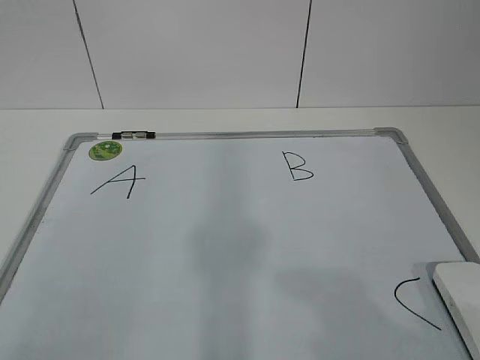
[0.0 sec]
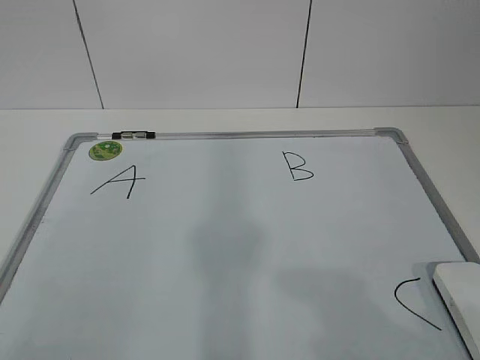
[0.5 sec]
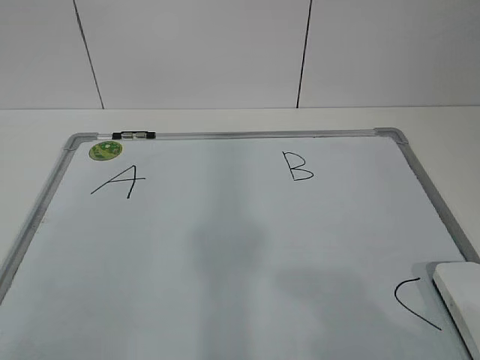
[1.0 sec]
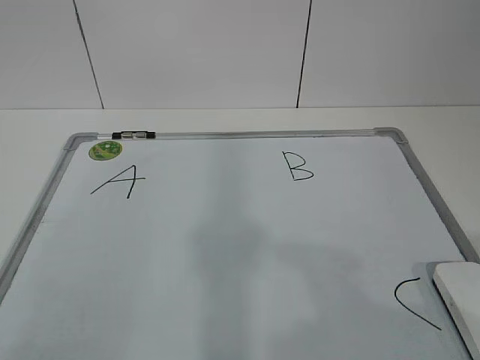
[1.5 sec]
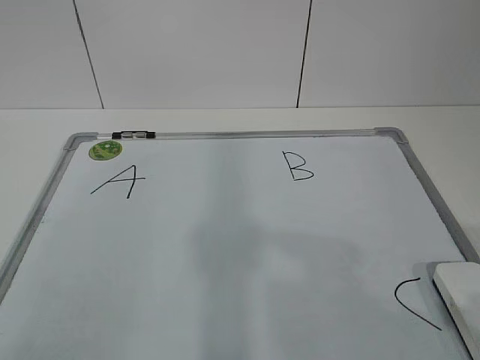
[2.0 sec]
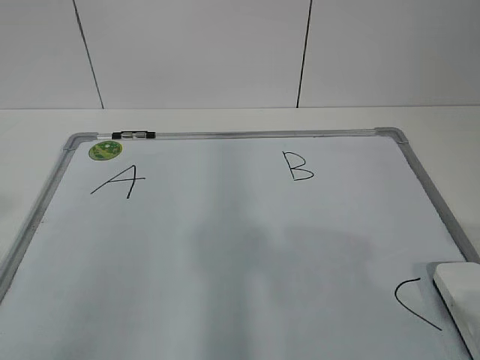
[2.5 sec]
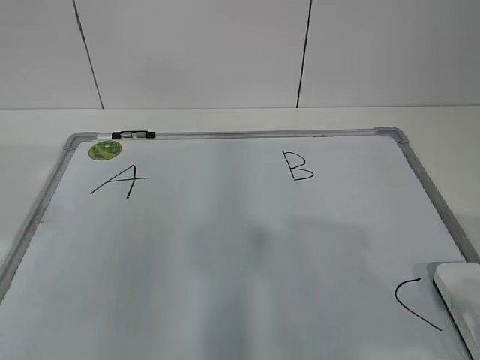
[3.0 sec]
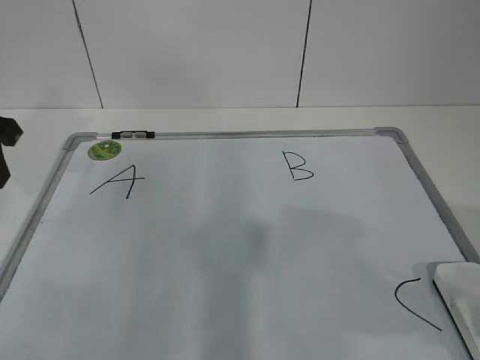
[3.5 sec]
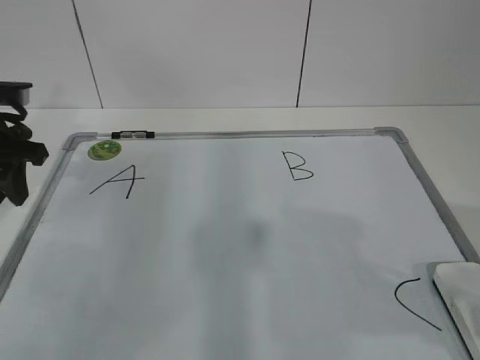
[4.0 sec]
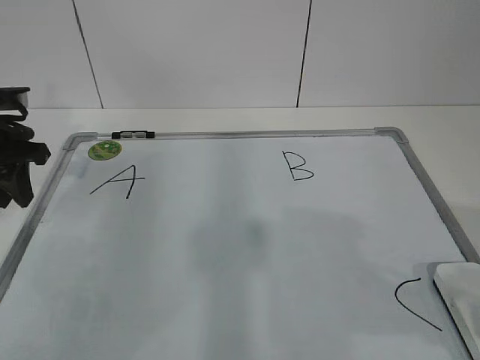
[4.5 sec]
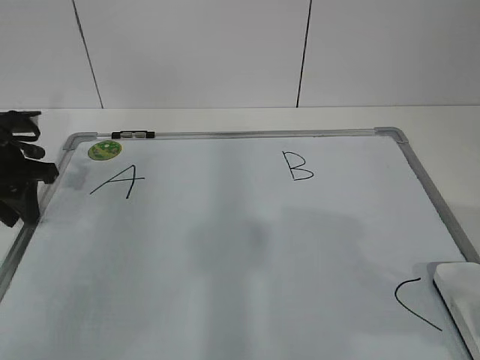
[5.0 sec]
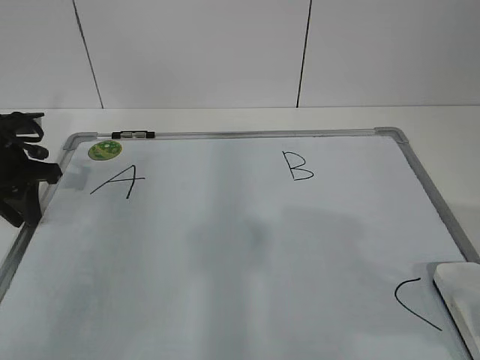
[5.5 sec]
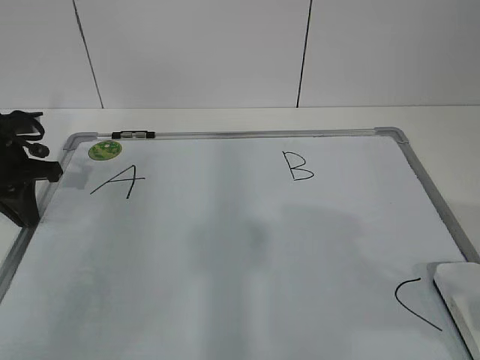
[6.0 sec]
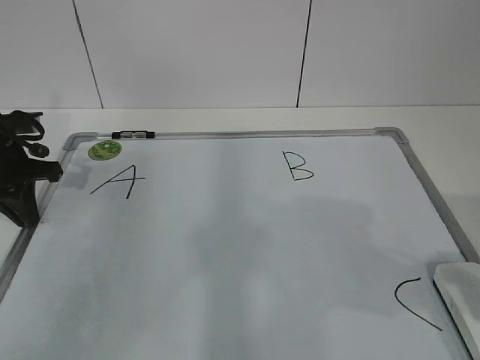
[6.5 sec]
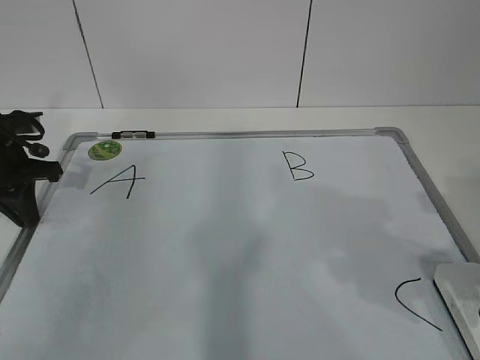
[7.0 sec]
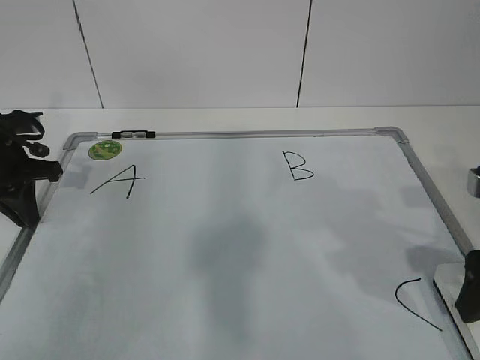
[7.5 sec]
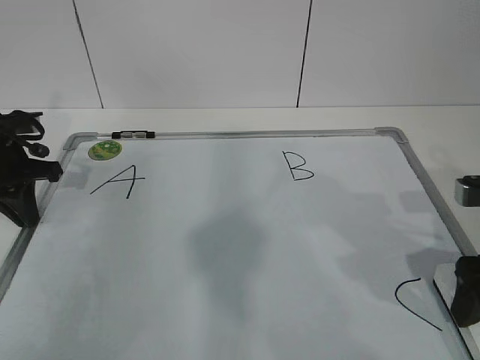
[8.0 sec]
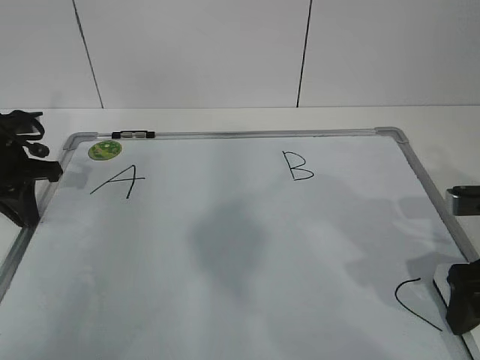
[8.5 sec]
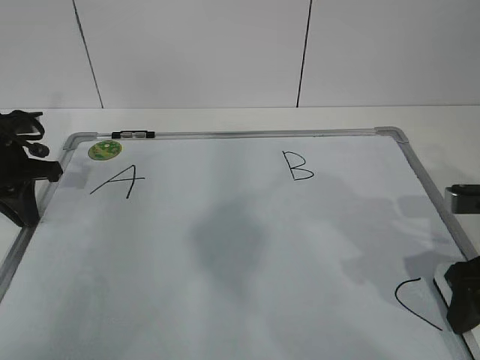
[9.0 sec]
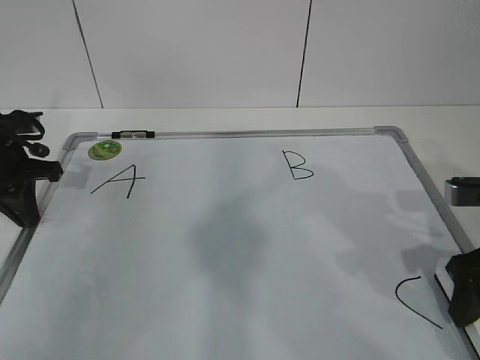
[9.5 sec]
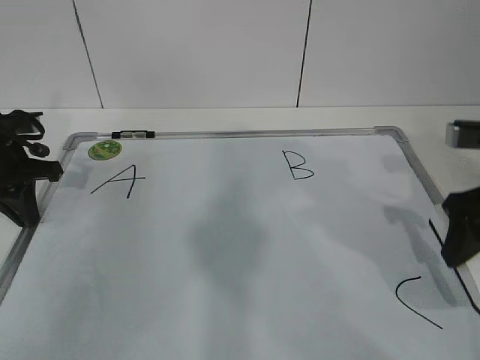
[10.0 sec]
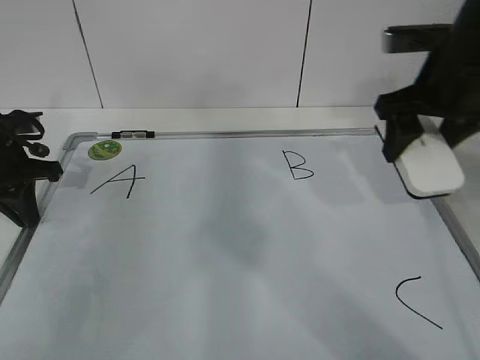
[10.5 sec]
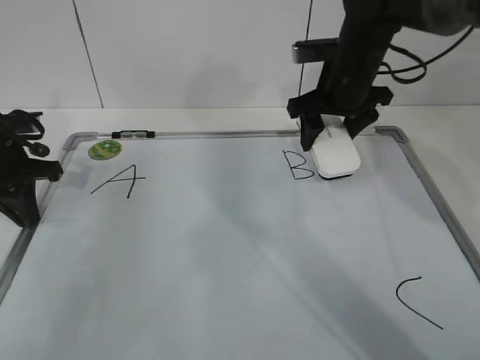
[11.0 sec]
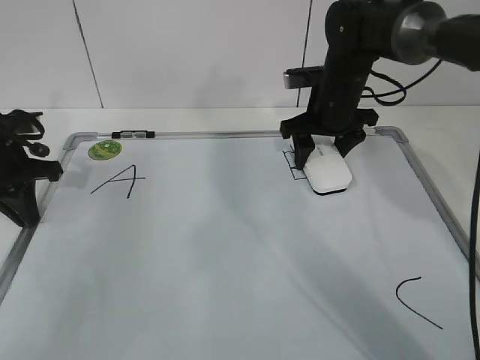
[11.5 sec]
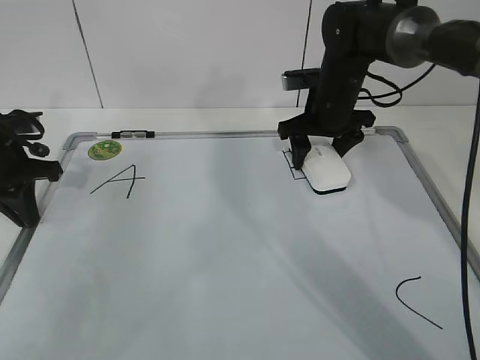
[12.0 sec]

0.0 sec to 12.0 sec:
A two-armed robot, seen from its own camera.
Task of the whole recording: pick up the eraser on the blackboard and erase the letter "B".
Step, 0.0 sec to 4.5 sec: Hold the drawing board steady with your left hand.
Step, 7.5 sec to 9.5 sec: Put down the eraser with your right hand.
2.0 sec to 4.0 sec: The left gripper travels forward by about 35 cm.
4.0 sec to 6.0 sec: The left gripper is displaced downward by roughly 5 cm, and closes up.
6.0 sec to 8.0 sec: The right gripper travels forward and downward by approximately 15 cm, and opens its fingers.
8.0 sec to 10.0 sec: The right gripper closes up.
10.0 sec to 12.0 sec: The right gripper shifts some 25 cm forward and to the left.

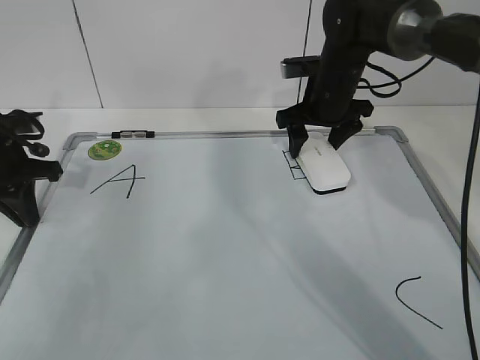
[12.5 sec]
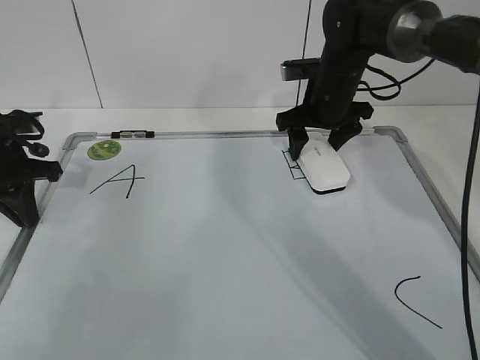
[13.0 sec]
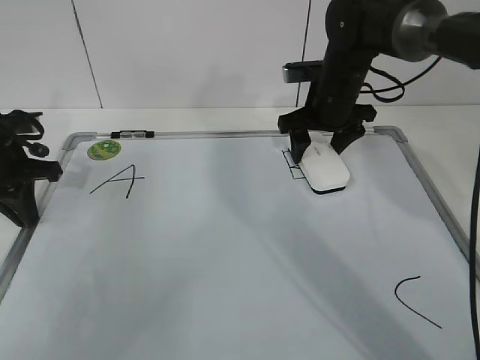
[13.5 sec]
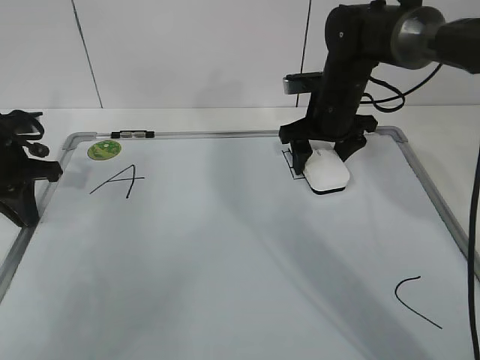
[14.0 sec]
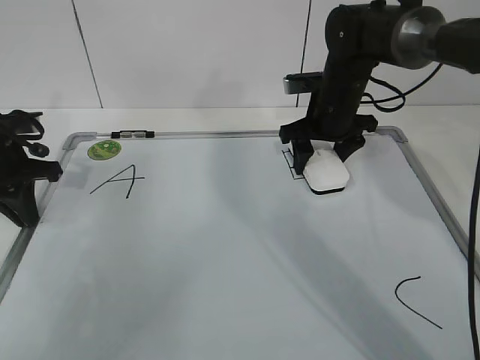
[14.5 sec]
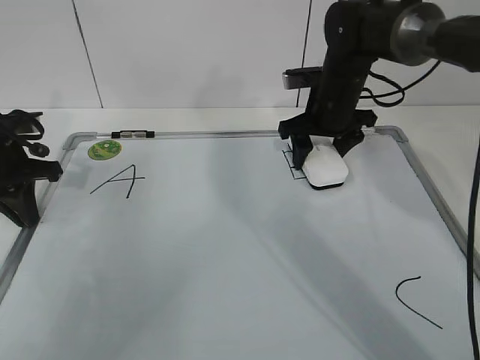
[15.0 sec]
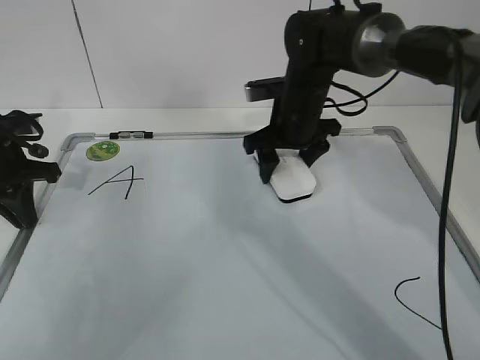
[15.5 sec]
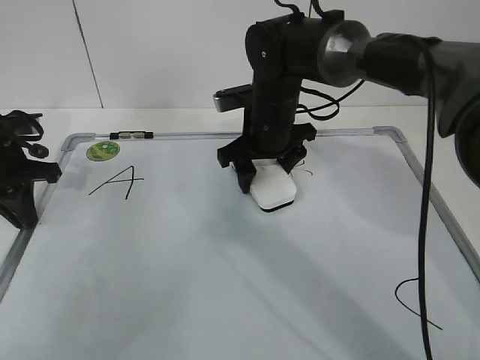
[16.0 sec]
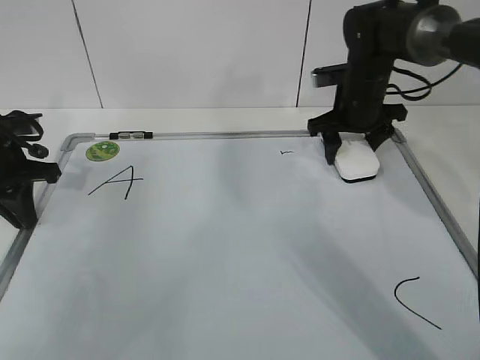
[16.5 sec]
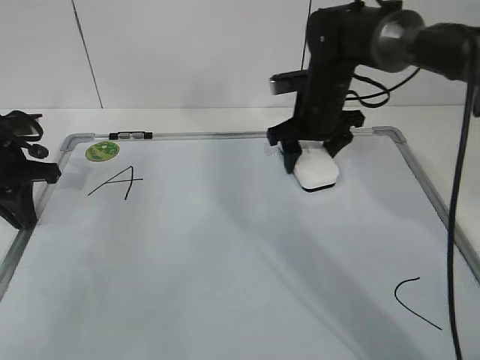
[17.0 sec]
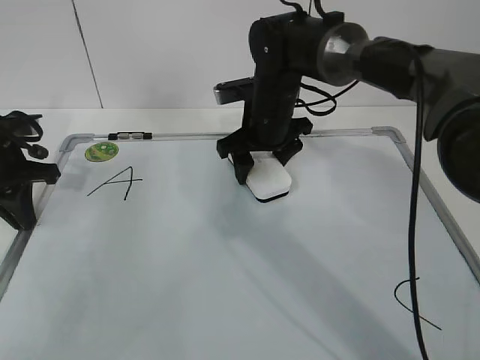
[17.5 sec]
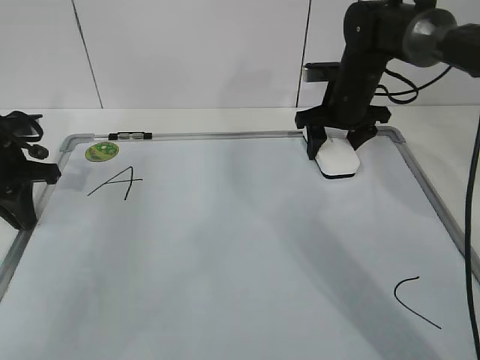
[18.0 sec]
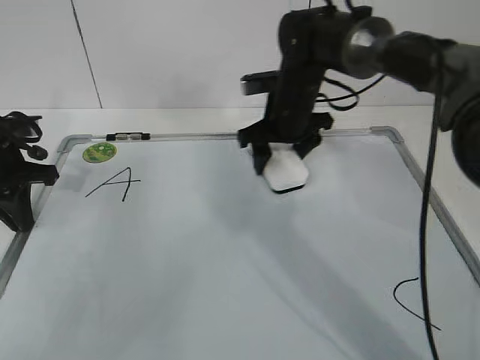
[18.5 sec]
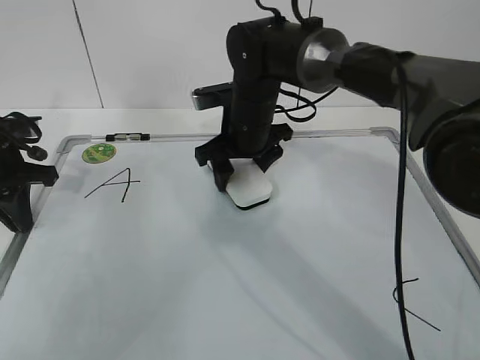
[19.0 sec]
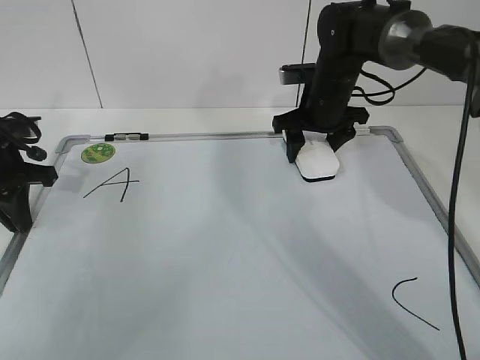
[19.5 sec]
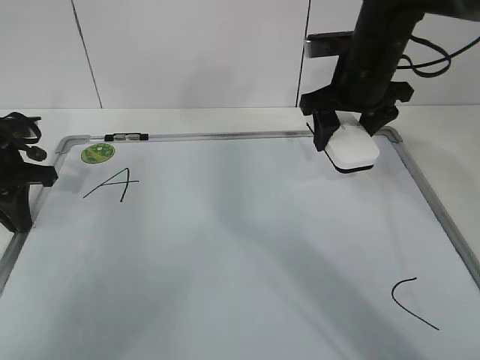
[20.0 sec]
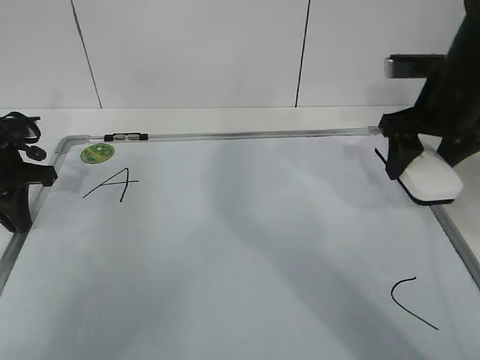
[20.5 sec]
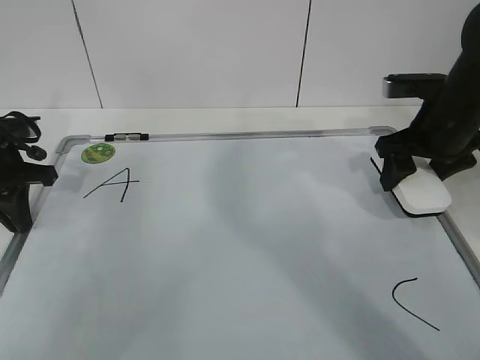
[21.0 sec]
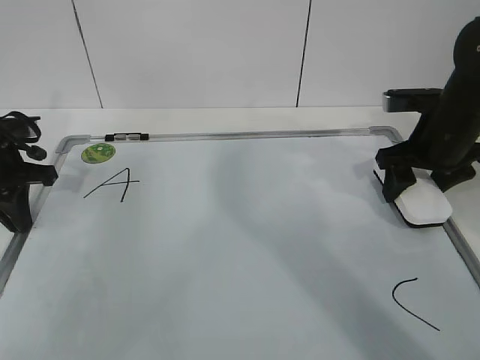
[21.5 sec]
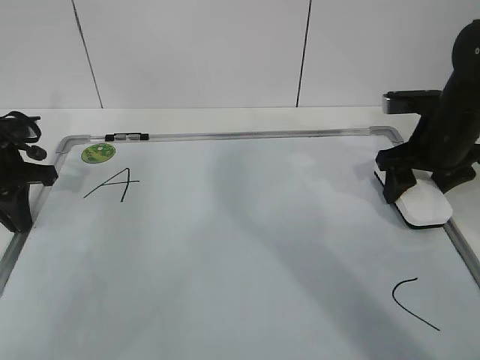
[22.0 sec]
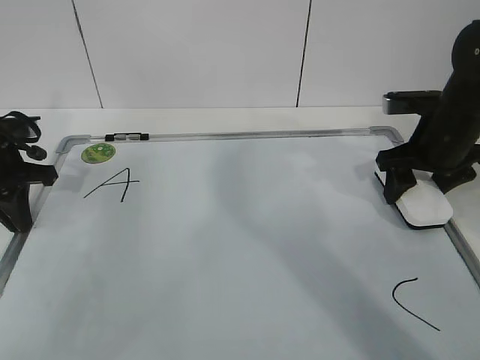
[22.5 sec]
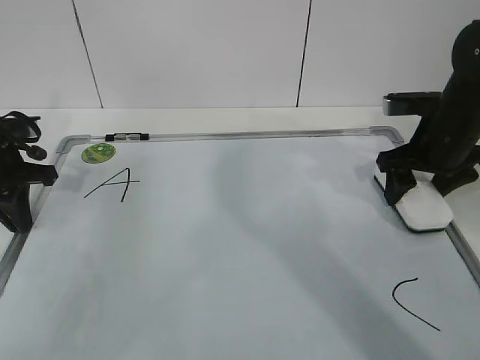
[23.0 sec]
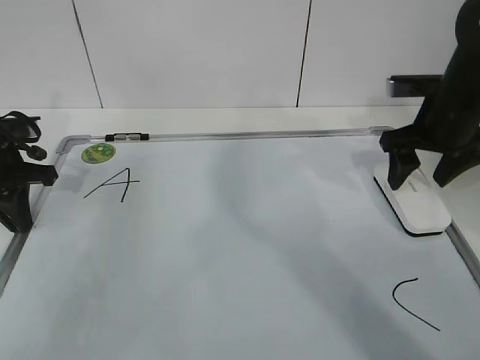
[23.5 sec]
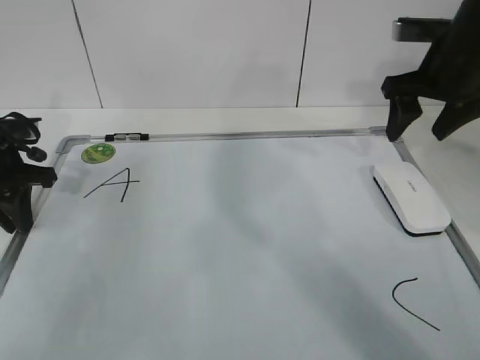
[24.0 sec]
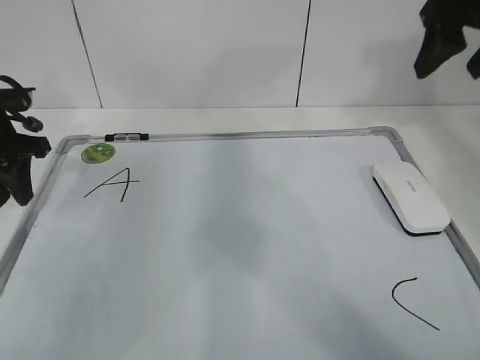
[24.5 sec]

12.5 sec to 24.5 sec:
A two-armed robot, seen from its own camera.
Task of the whole recording: pick up the eraser on the blackboard and erase the letter "B".
Step, 12.5 sec to 16.0 sec: Erase the letter B with your right hand.
Step, 16.5 sec to 19.0 sec: Put down the eraser with your right hand.
12.5 sec to 14.5 sec: The right gripper closes.
14.5 sec to 16.5 sec: The right gripper moves about 10 cm to the left and comes back.
16.5 sec to 18.5 sec: The right gripper goes left and right, approximately 15 cm each way, reversing 2 times.
18.5 sec to 20.5 sec: The right gripper travels to the right, backward and upward by roughly 20 cm.
20.5 sec to 22.5 sec: The right gripper shifts approximately 5 cm downward.
22.5 sec to 24.5 sec: The left gripper opens; the right gripper is displaced upward by approximately 15 cm.

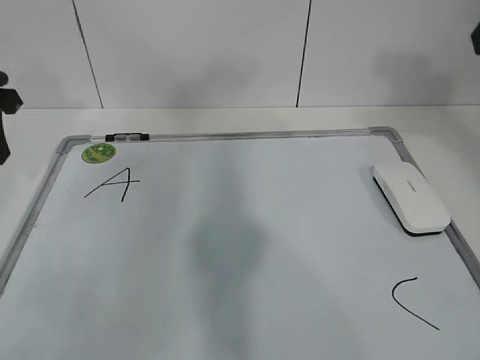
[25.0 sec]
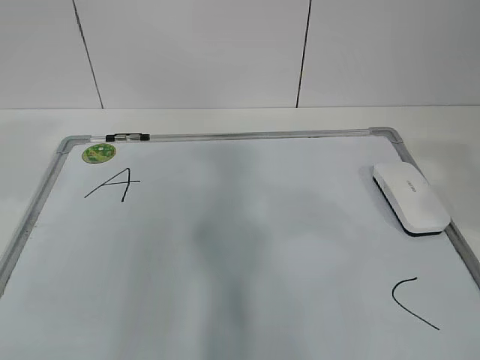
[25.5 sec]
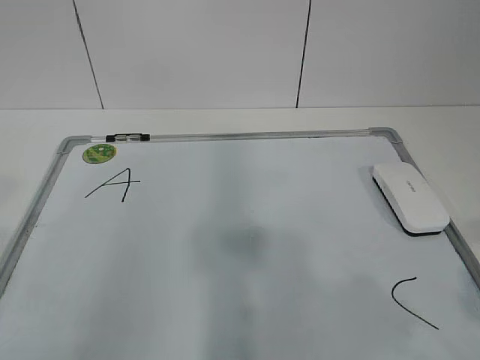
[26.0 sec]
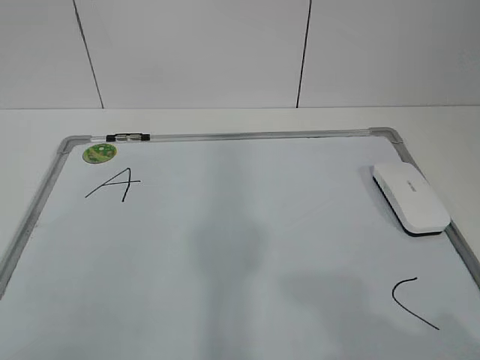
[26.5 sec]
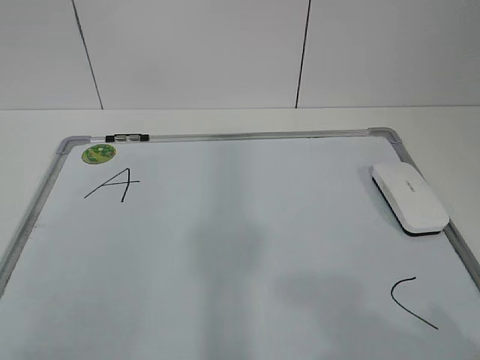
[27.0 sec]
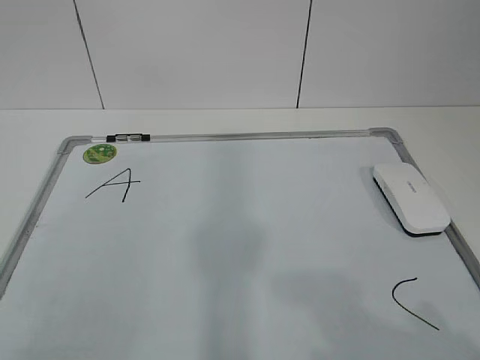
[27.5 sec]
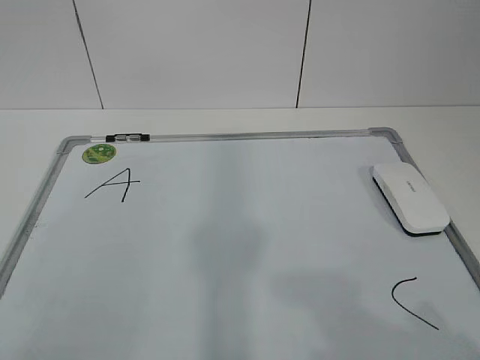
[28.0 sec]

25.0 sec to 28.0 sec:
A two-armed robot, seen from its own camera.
Task of the whole recording: pick up the eraser on the blackboard and erase the letter "B".
25.0 sec to 26.5 sec: The left gripper shifts about 35 cm backward. Meanwhile the right gripper moves backward and downward, approximately 30 cm.
